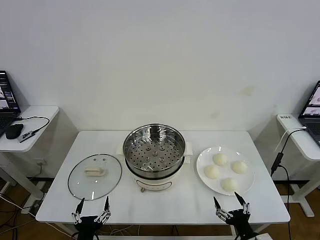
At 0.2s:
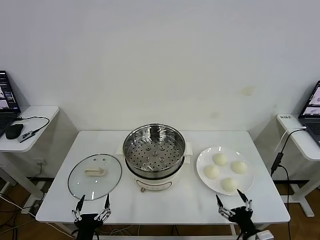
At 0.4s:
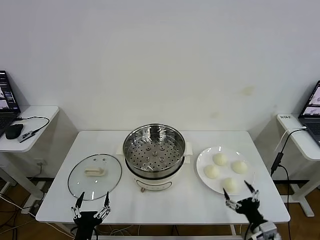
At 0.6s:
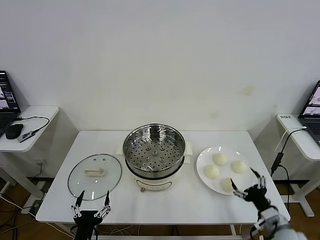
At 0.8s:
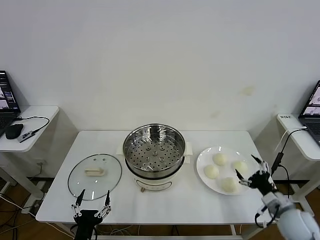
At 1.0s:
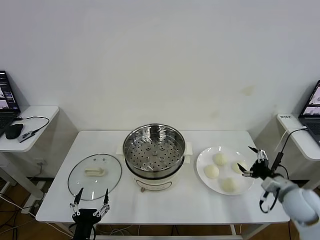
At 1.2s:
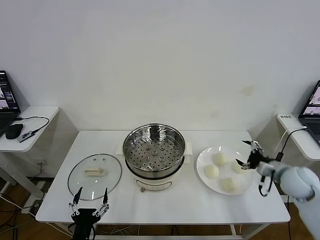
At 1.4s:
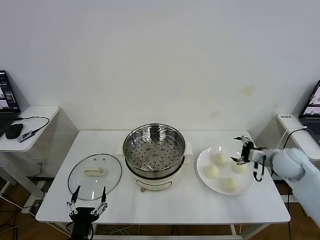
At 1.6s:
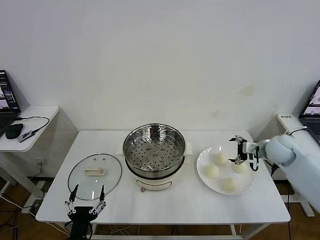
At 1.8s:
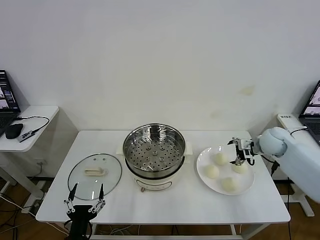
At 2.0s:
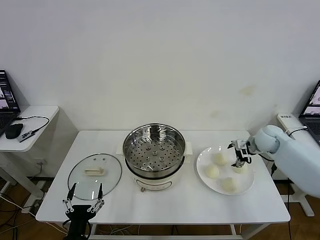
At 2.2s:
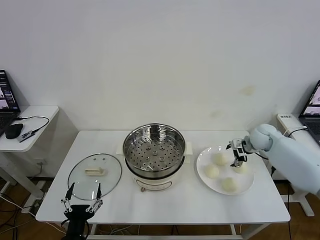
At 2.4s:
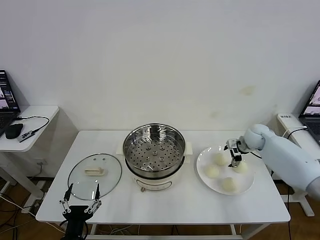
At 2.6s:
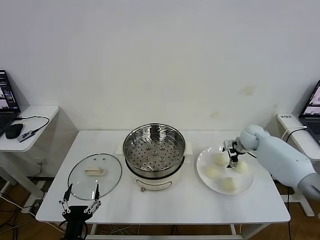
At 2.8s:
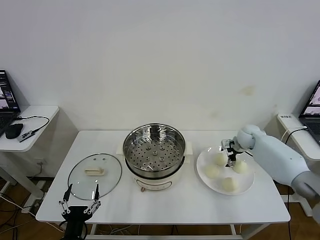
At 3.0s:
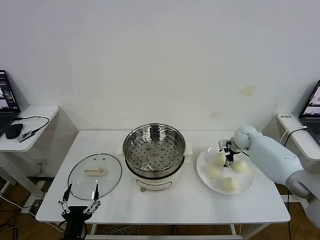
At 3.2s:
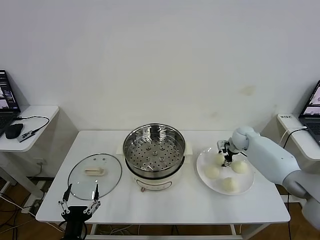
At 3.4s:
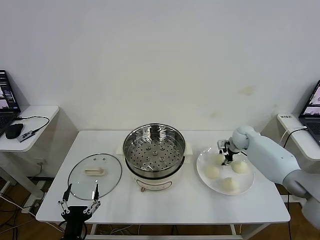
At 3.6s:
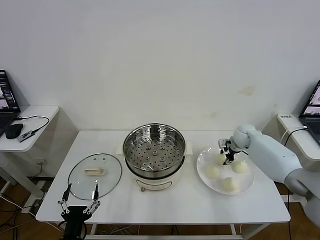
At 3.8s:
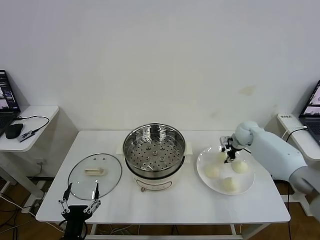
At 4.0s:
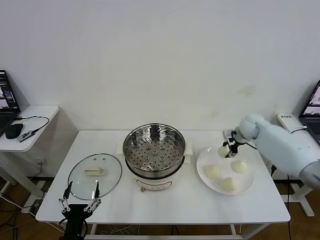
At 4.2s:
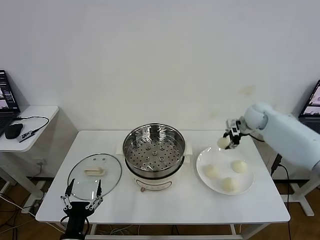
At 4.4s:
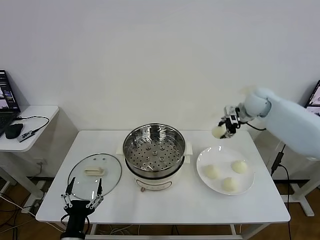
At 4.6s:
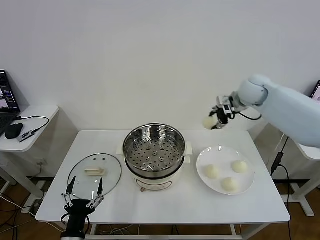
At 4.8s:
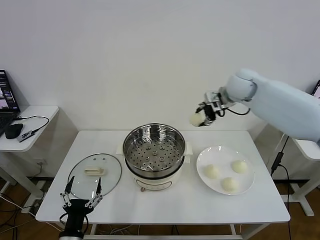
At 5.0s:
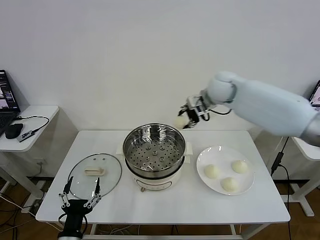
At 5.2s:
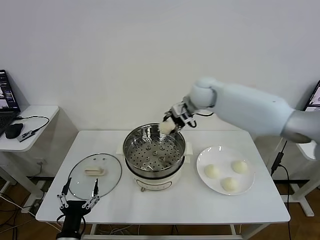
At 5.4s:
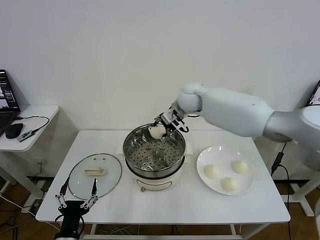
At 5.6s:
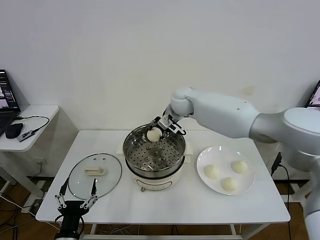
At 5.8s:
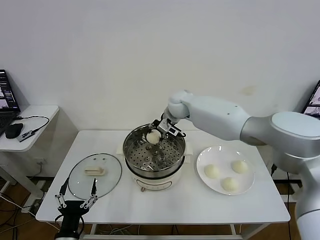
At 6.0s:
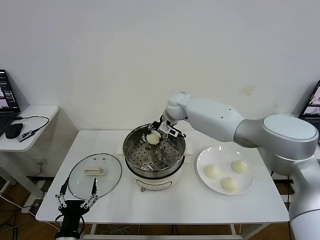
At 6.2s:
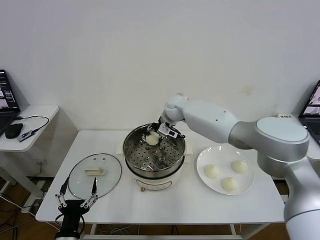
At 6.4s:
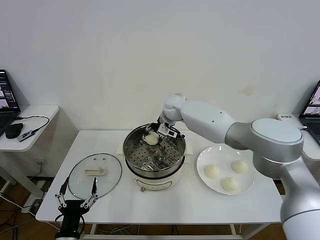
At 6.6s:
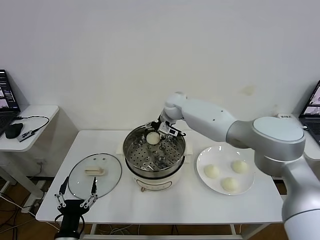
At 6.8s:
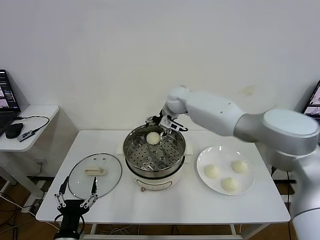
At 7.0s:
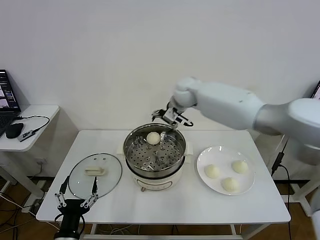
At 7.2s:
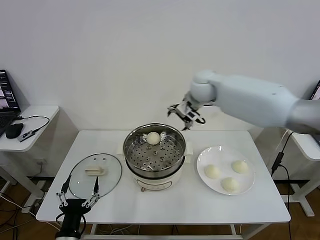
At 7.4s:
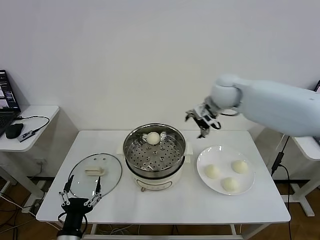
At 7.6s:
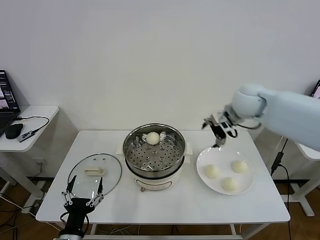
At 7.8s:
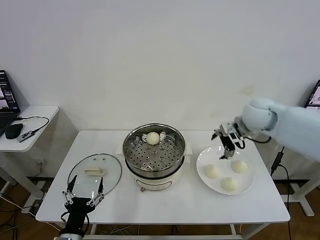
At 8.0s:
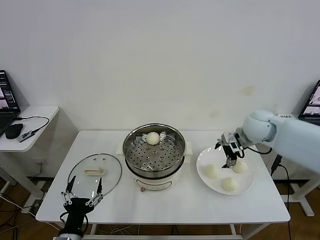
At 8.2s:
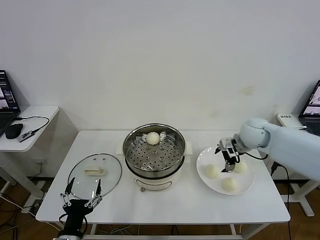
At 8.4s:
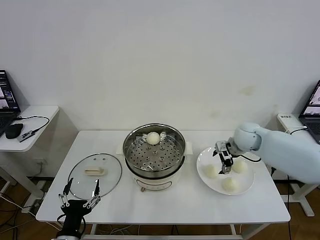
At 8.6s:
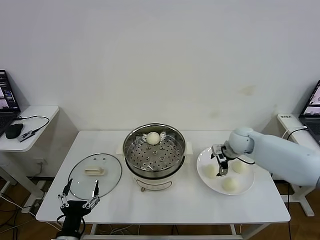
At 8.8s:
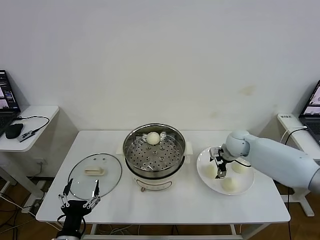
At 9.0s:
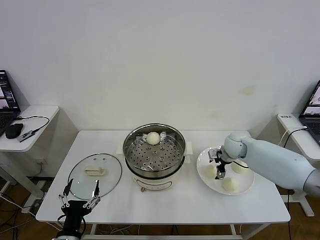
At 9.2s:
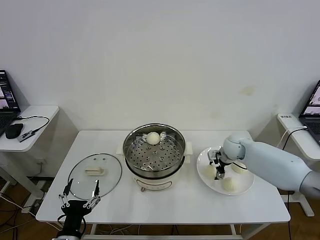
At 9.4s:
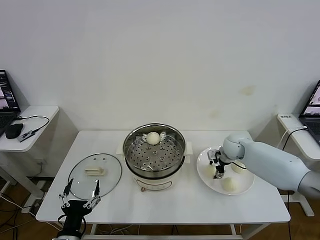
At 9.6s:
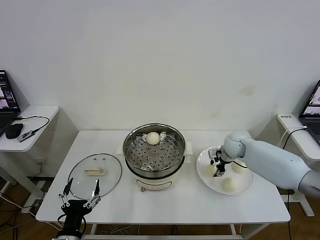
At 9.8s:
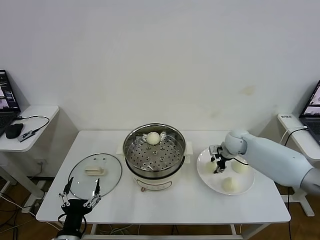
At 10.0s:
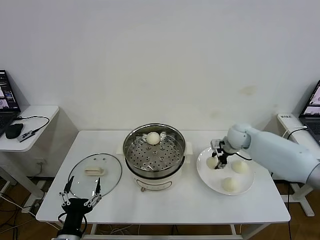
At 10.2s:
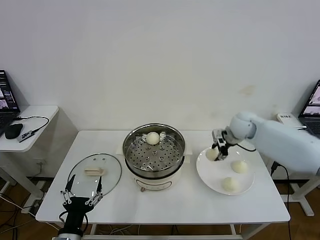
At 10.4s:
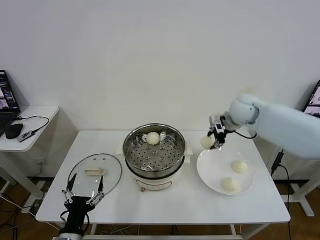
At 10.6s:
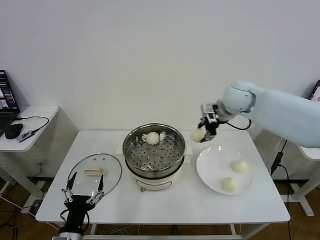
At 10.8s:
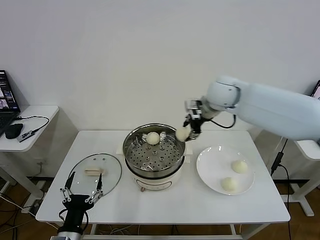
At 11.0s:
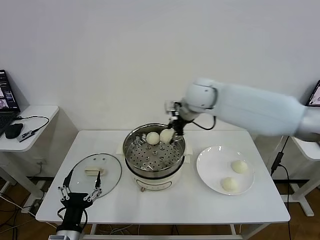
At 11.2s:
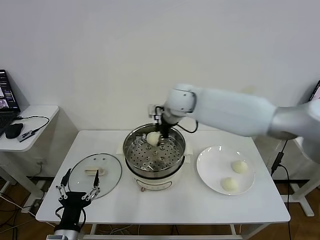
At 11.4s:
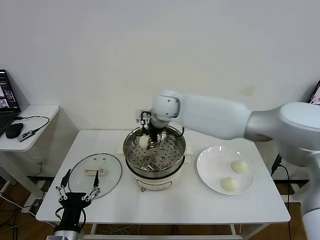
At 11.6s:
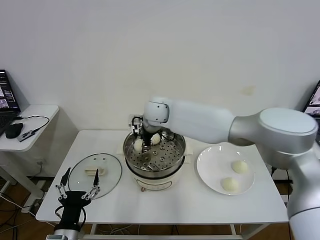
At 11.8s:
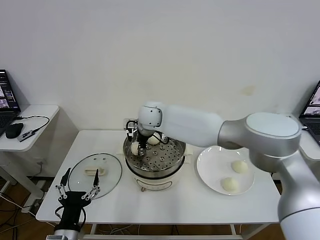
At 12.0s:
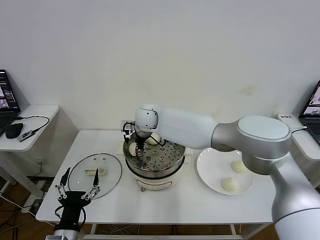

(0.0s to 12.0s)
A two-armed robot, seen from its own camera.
Task of the whole recording: take steamed baozi put them in steamer then cover it.
Step, 0.0s - 3.4s: Grasp the baozi in the plate with right gripper.
Step, 3.6s - 6.4s: Place the baozi on the steamer with right gripper.
Step, 6.6s - 9.4s: Grasp the baozi in the plate with right gripper.
1.6s - 3.0s: The right gripper goes roughly 15 cm forward, downward and to the left.
3.0s - 4.4s: The right gripper is displaced upward by approximately 20 cm, and closes up.
4.4s - 6.0s: The right gripper goes some 25 cm to the left.
6.0s - 7.6s: The right gripper travels to the right, backward and upward by some 25 cm, and opens its fingers.
7.6s - 9.0s: The right gripper shifts about 20 cm downward.
9.0s - 10.4s: The right gripper goes roughly 15 cm upward, and closes its fingers.
10.4s - 12.0s: The right gripper moves to the left, about 30 cm.

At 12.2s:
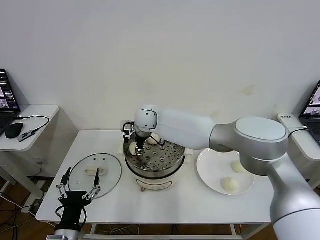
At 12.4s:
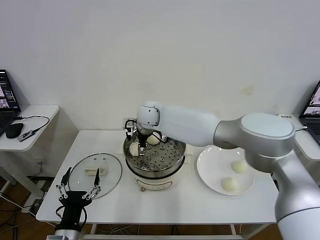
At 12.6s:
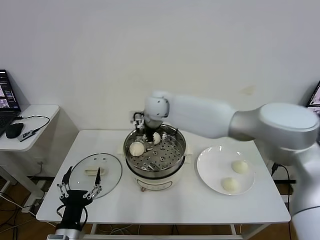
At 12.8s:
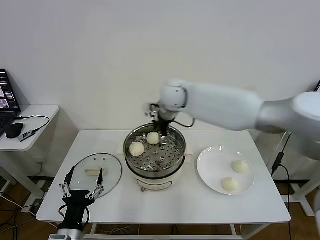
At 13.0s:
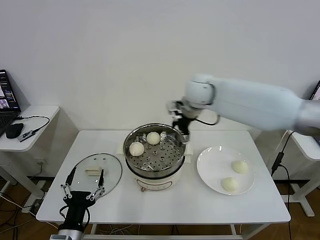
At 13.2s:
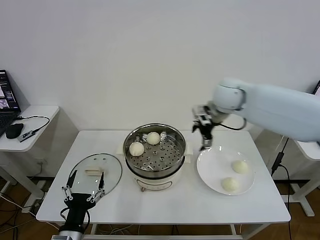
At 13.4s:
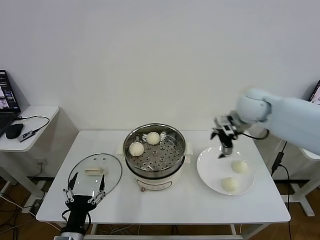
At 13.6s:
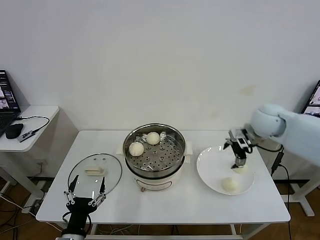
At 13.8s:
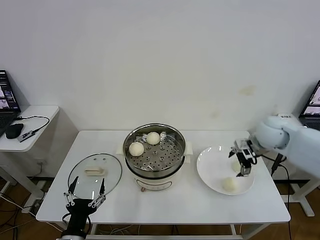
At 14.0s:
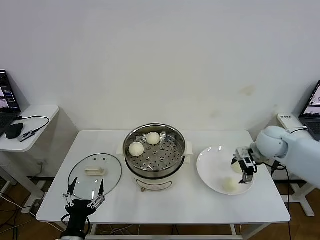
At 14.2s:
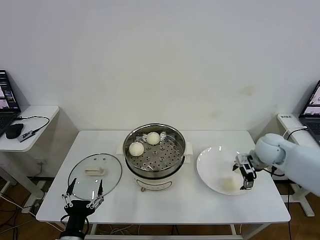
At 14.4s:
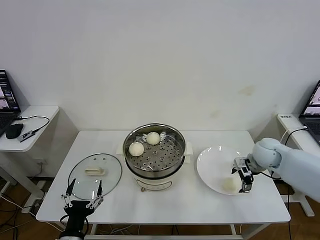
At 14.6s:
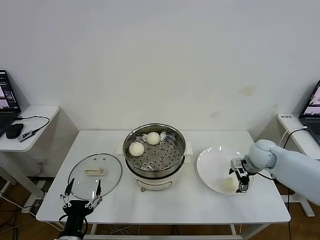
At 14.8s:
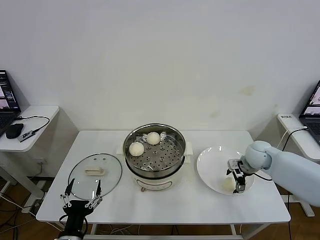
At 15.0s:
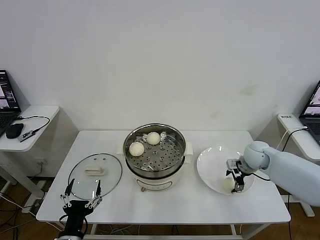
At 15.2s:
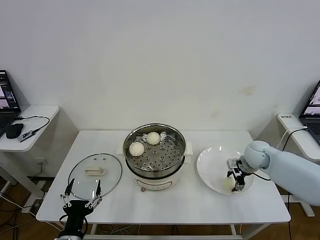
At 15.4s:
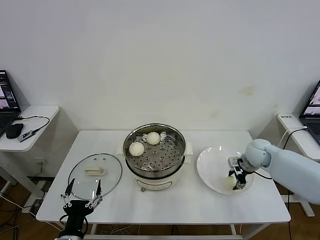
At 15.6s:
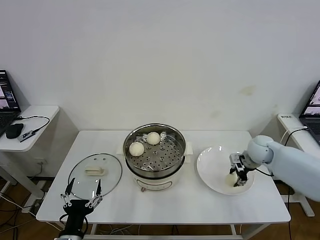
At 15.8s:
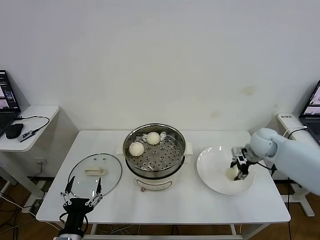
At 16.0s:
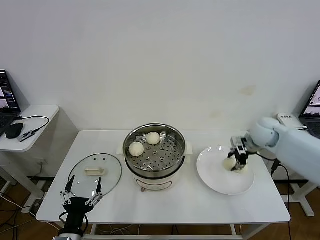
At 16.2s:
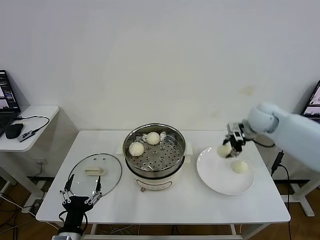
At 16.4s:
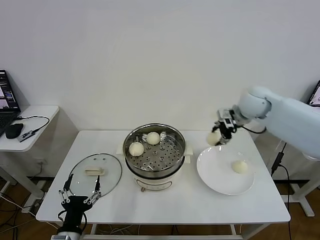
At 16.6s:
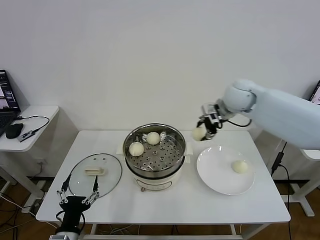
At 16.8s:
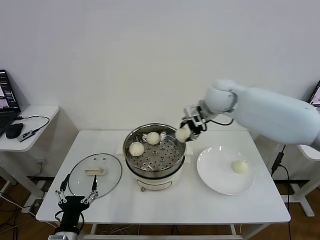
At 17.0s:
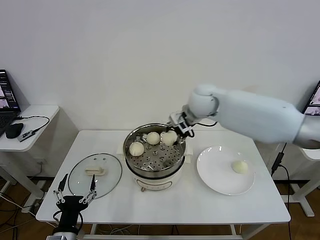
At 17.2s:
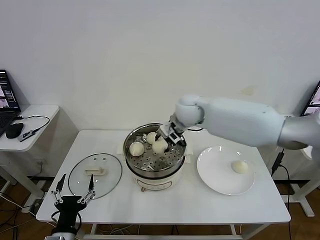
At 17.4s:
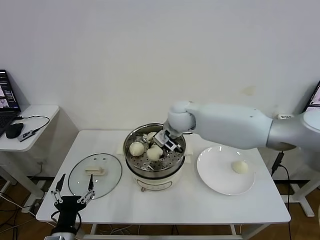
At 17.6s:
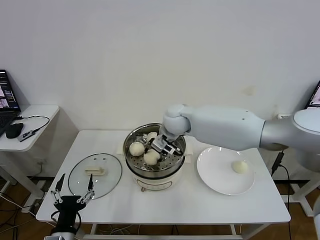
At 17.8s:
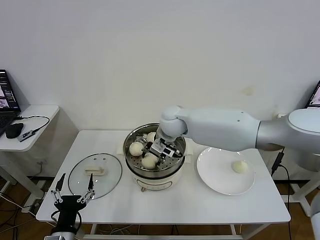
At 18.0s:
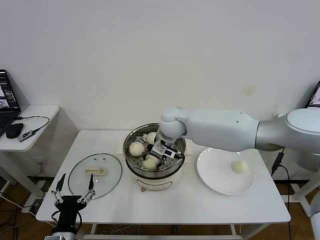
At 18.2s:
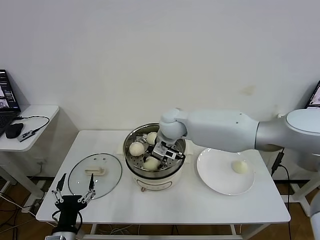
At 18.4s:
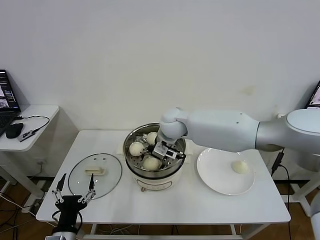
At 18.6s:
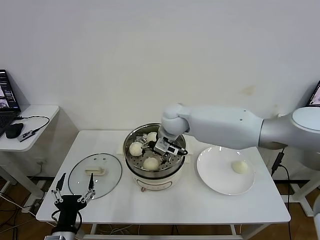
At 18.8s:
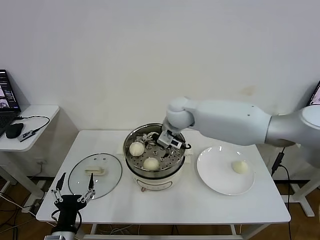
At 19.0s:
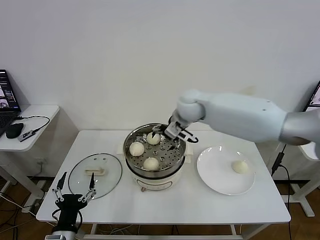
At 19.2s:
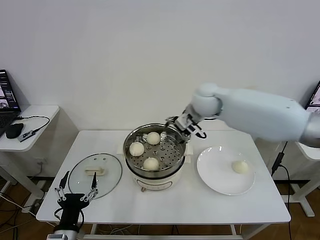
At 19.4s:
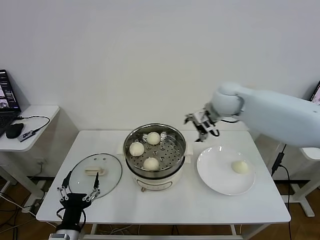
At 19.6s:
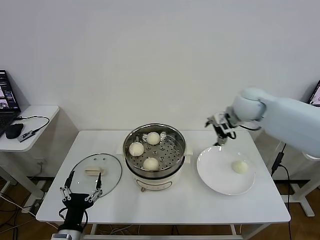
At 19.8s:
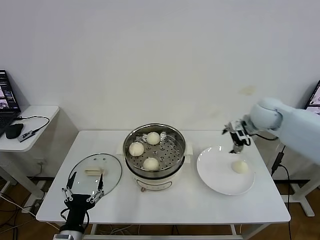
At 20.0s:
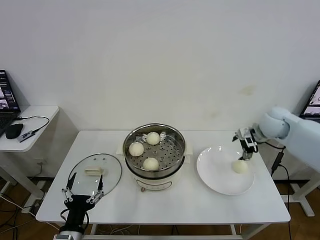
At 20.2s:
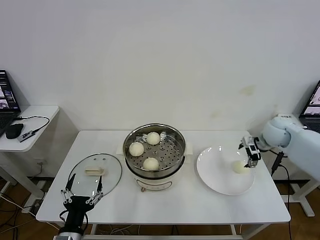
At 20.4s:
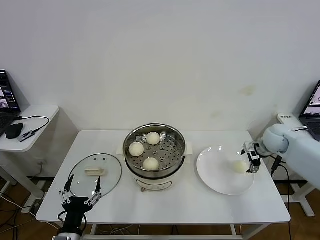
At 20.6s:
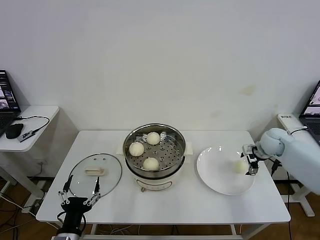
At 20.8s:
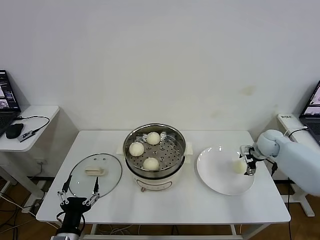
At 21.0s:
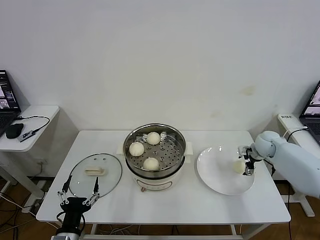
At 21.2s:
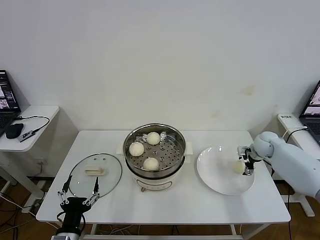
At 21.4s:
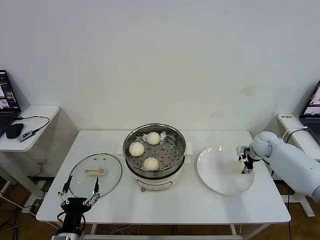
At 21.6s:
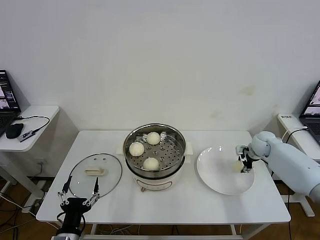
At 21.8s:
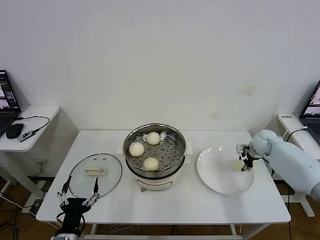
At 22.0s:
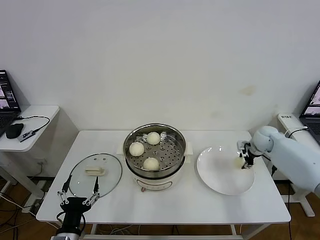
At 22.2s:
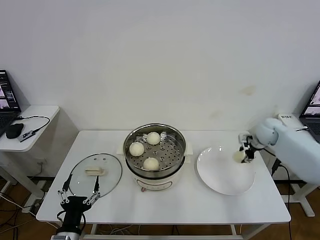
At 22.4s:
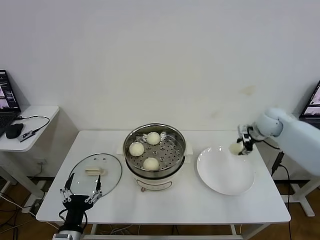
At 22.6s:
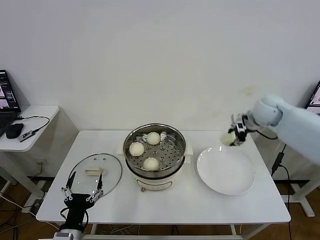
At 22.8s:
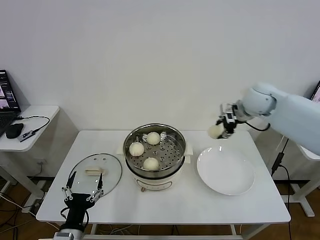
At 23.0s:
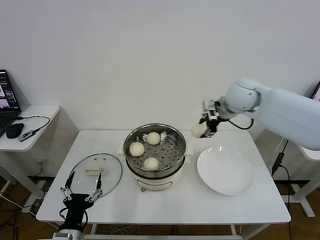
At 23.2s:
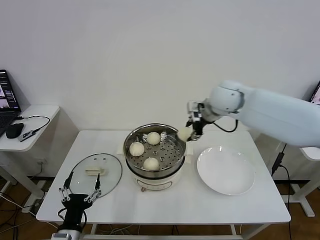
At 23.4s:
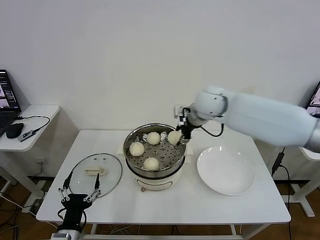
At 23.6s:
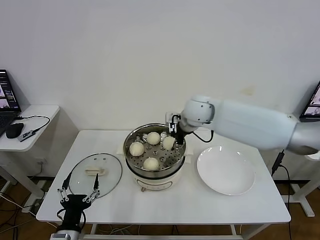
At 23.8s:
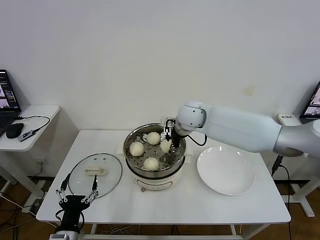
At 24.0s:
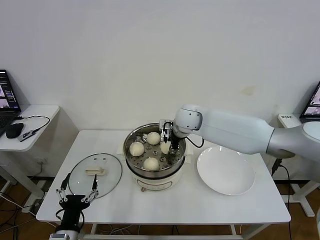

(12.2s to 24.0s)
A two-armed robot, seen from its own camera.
Task of the whole recording: take steamed baozi put them in steamer then cover it.
Step, 12.4s - 15.2s: Grasp the baozi in the plate with right gripper.
Step, 15.4s - 18.2s: Place the baozi on the steamer with right gripper.
Step, 18.6s - 21.6s: Grasp the baozi in the plate with right gripper.
12.2s - 13.6s: The right gripper travels to the right by approximately 35 cm.
13.6s - 15.2s: The right gripper heads downward, covering approximately 15 cm, and closes.
15.2s - 16.6s: The right gripper travels upward and to the left by some 25 cm.
16.6s - 18.2s: The right gripper travels to the left and downward by some 20 cm.
18.2s - 19.6s: The right gripper heads to the right, covering about 25 cm, and opens up.
19.6s - 21.0s: The right gripper travels downward and to the right by roughly 25 cm.
21.0s - 22.6s: The right gripper shifts approximately 15 cm upward and to the left, and closes its fingers.
22.6s - 24.0s: The right gripper heads to the left, covering approximately 25 cm.
